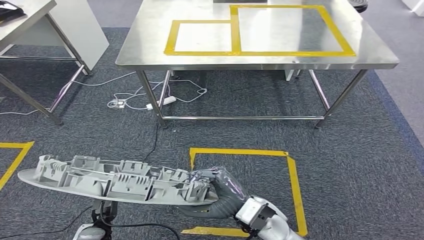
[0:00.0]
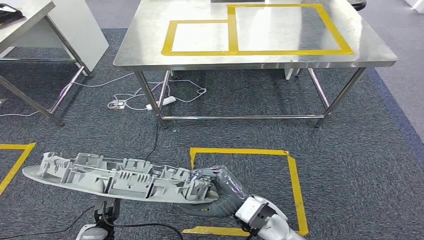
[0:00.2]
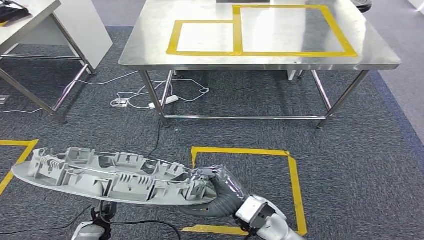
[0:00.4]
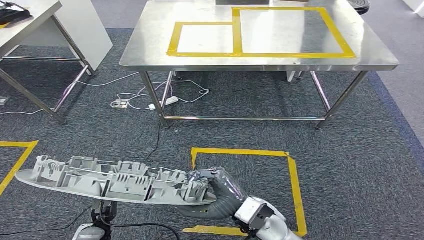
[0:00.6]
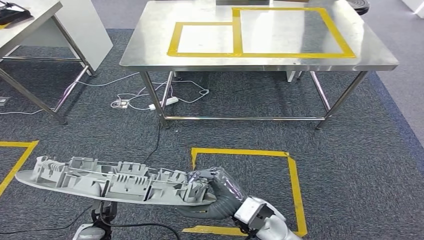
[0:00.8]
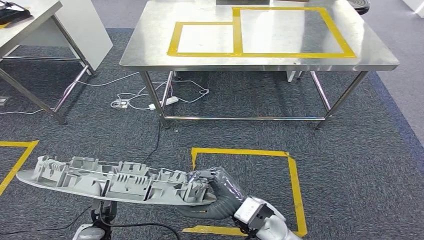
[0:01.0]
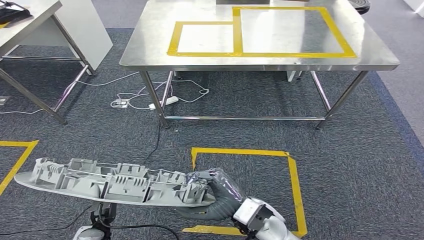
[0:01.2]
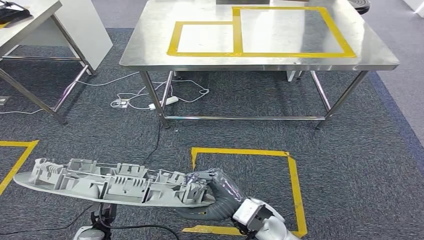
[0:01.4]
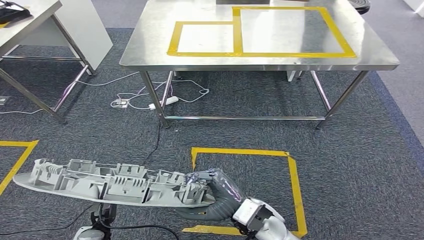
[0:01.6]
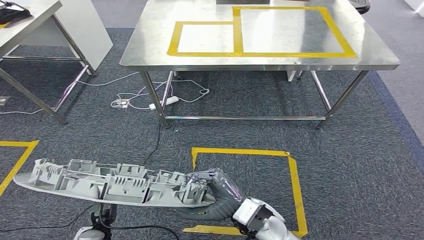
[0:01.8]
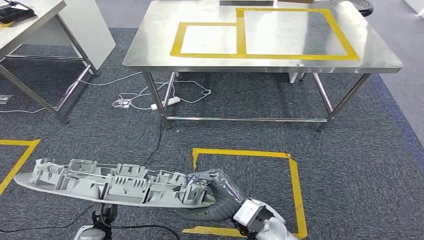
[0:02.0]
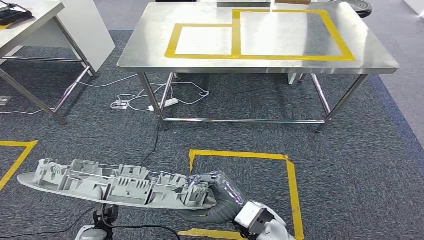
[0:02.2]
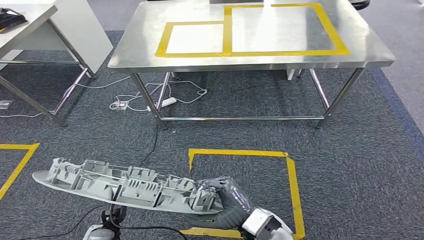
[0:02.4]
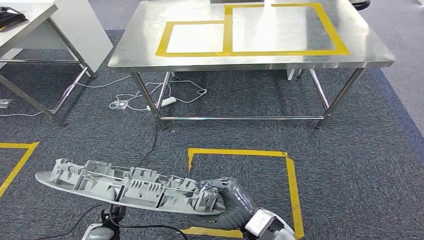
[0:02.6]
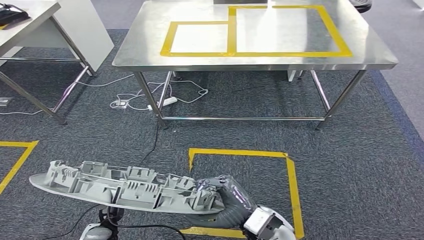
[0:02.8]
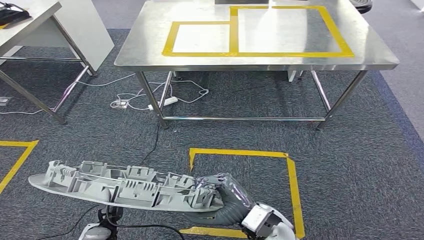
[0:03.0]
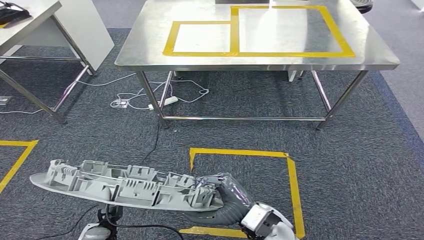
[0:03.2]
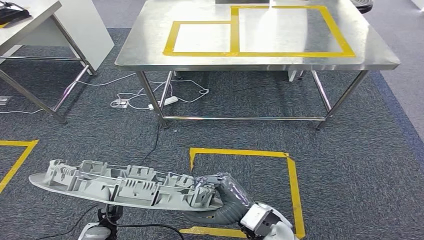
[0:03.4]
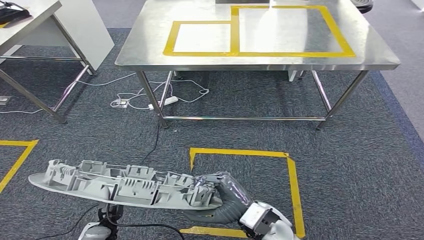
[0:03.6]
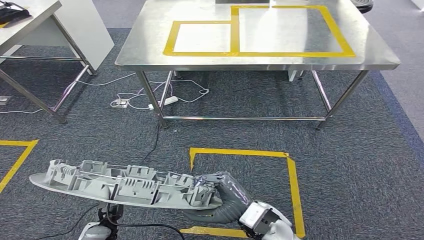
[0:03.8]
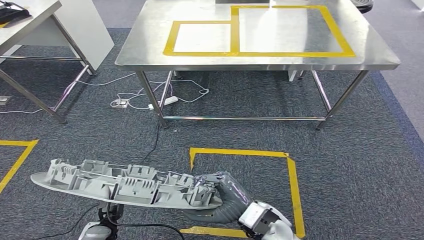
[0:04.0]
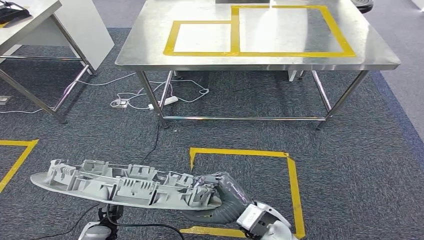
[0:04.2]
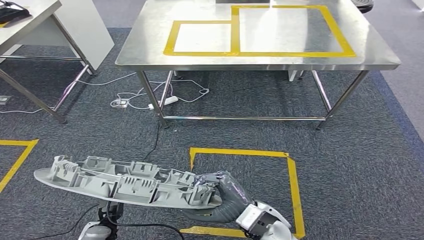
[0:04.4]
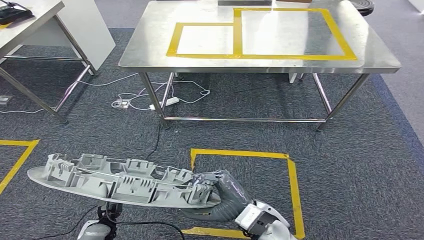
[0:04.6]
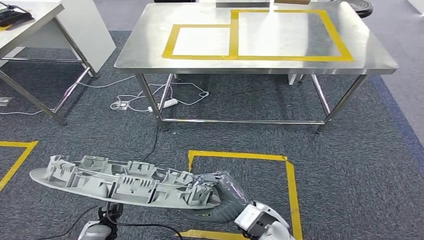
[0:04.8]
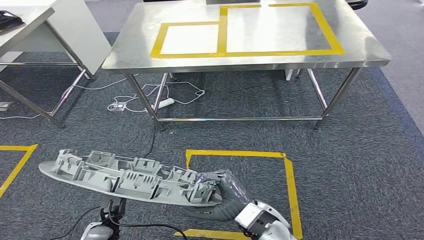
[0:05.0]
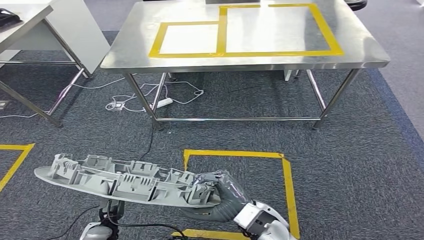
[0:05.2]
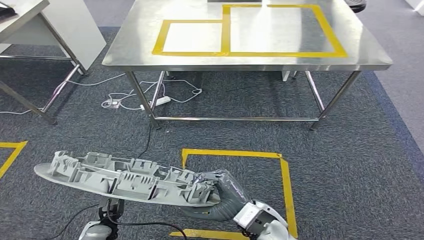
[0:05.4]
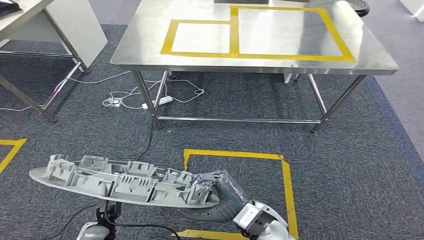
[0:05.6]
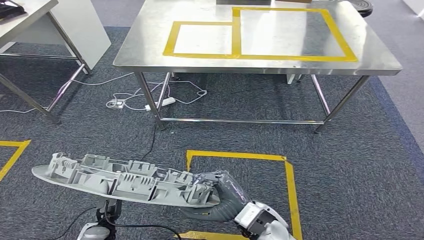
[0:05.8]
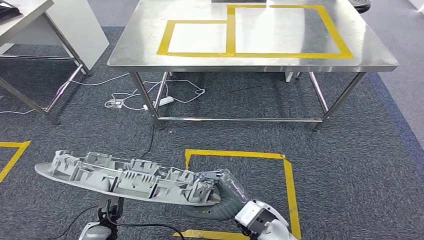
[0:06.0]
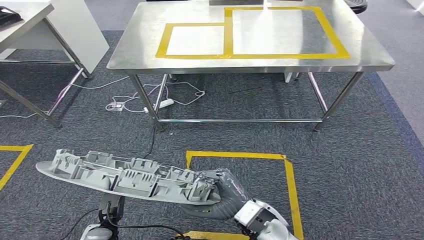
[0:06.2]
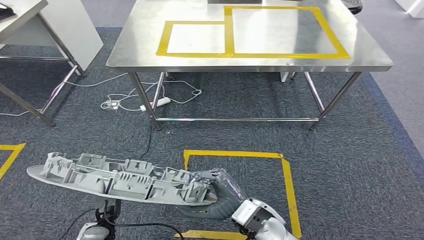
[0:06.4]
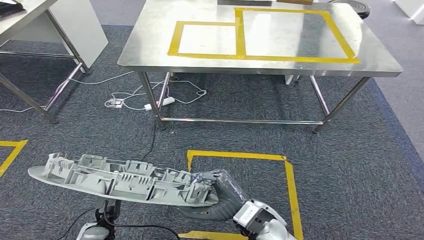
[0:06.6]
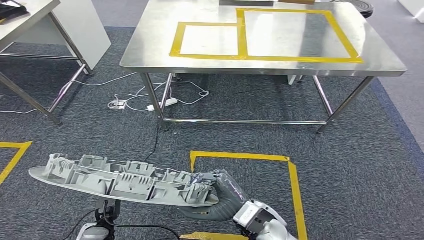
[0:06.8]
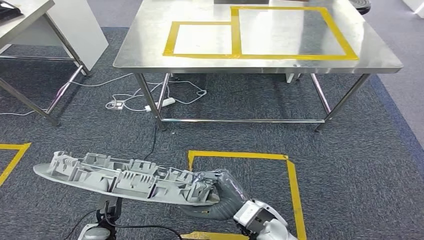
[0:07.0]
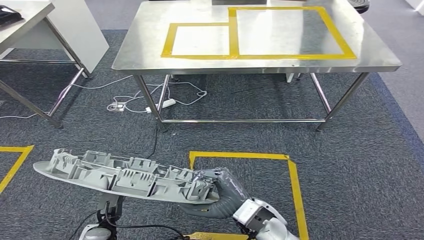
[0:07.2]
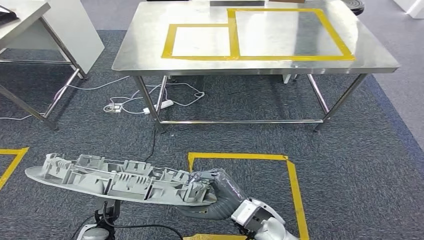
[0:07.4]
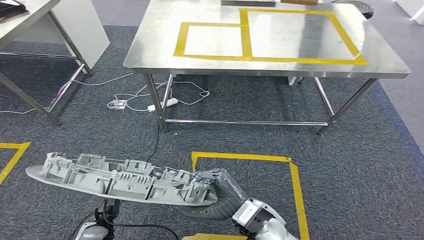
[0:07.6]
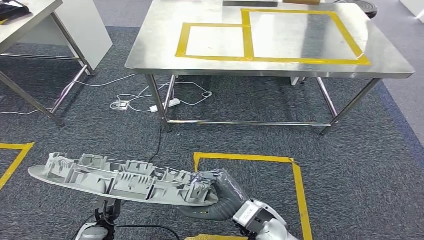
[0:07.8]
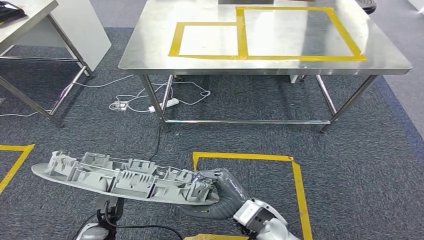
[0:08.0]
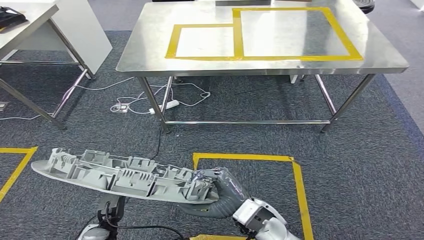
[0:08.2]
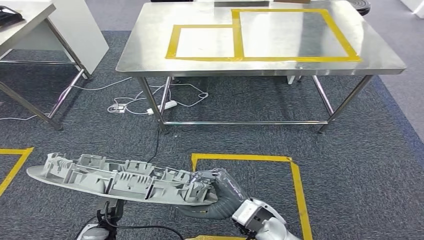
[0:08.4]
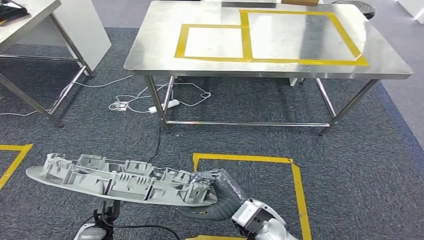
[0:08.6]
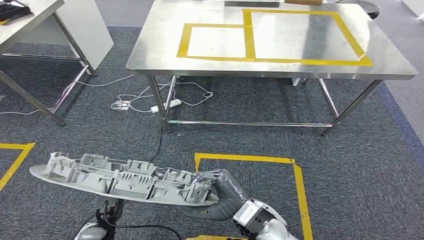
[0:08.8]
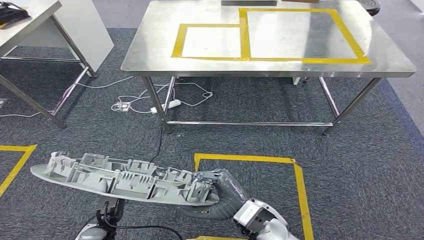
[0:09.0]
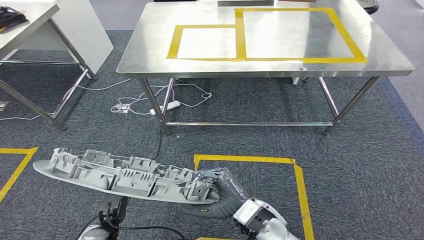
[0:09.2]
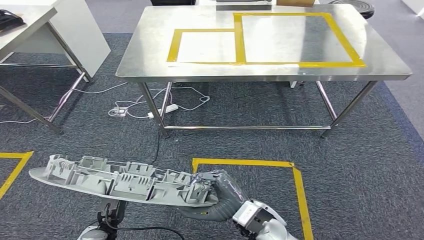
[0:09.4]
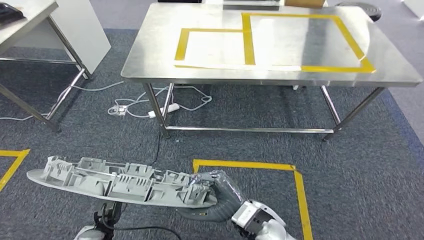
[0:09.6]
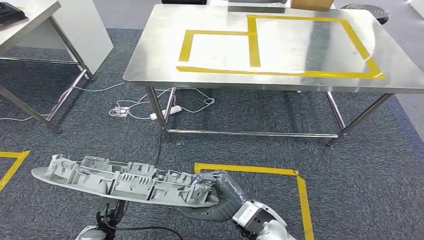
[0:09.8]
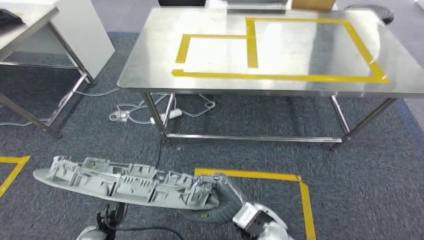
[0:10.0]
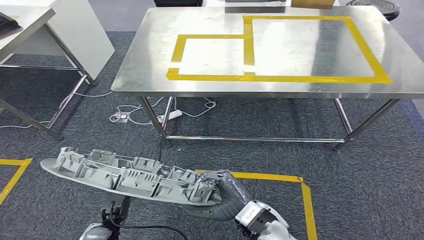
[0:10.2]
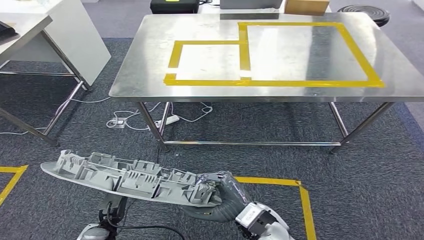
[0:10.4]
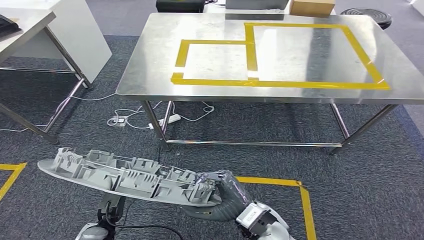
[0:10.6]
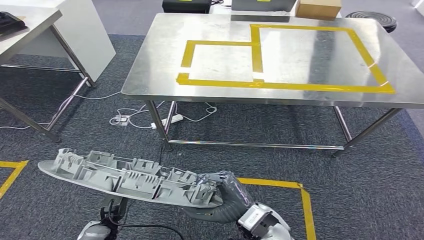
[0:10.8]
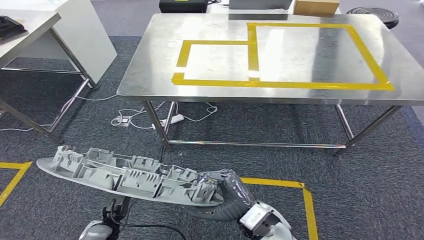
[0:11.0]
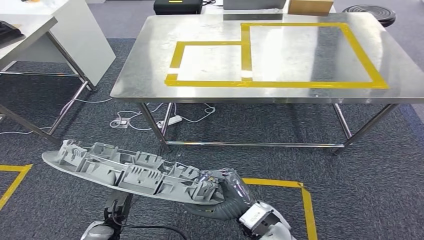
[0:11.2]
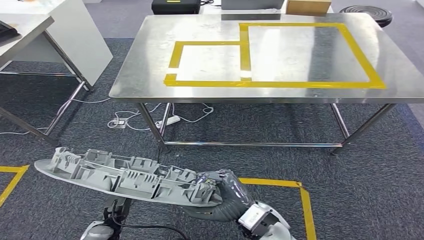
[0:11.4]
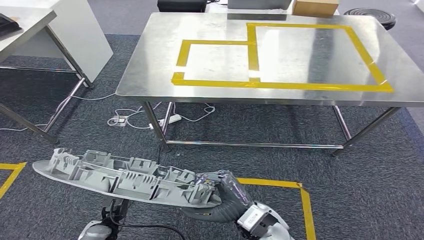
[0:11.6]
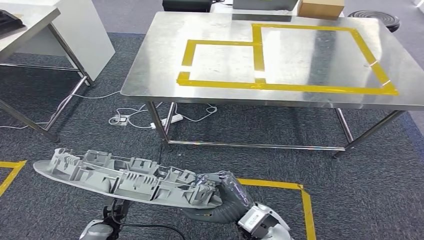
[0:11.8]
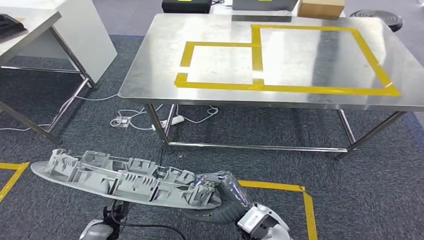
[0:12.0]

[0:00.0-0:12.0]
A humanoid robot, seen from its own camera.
0:00.0 to 0:01.6: Both hands stay put.
0:01.6 to 0:03.0: The hands stay close to where they were, moving slightly.
0:03.0 to 0:06.0: The two hands keep their place.
0:07.6 to 0:09.0: The hands stay close to where they were, moving slightly.

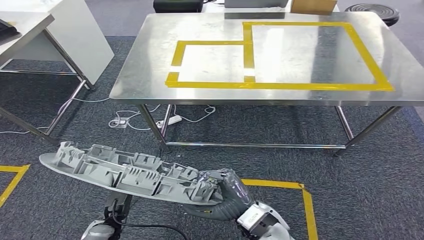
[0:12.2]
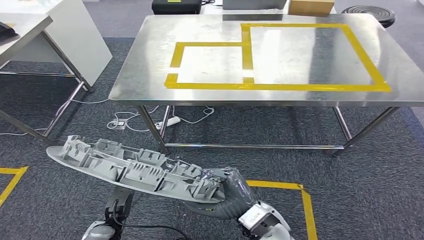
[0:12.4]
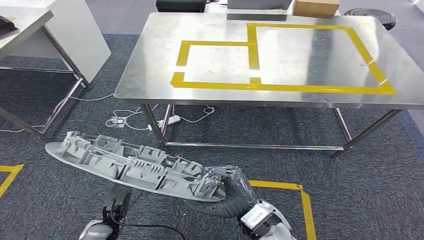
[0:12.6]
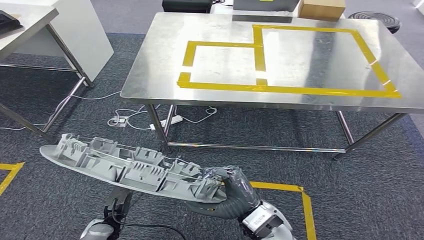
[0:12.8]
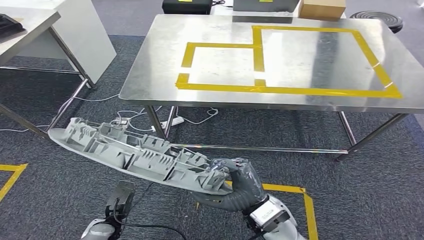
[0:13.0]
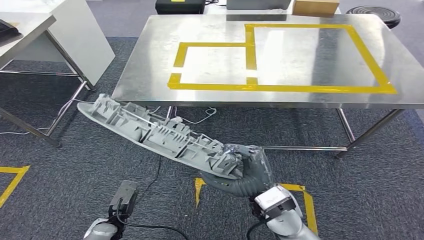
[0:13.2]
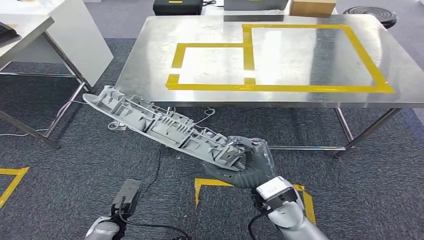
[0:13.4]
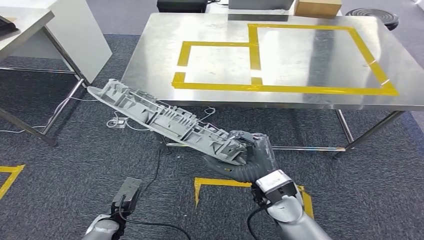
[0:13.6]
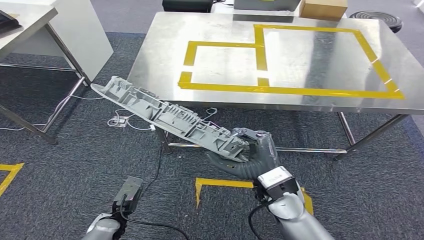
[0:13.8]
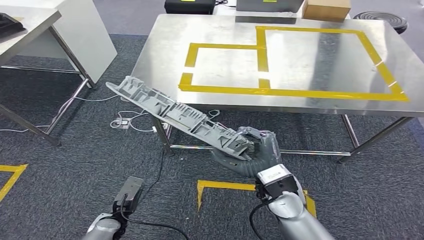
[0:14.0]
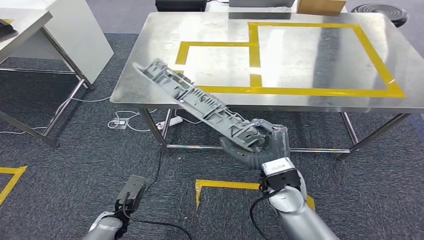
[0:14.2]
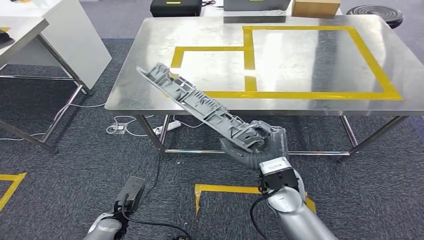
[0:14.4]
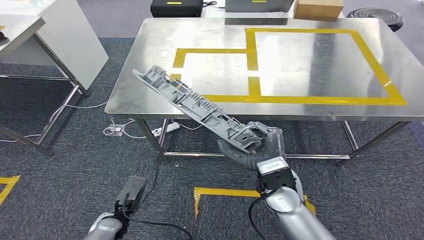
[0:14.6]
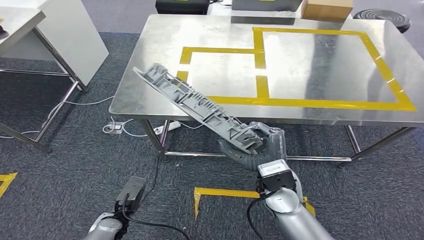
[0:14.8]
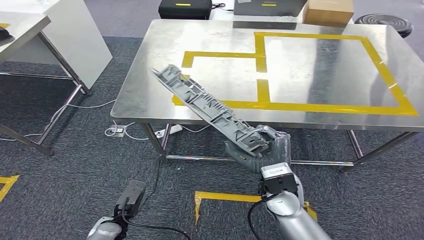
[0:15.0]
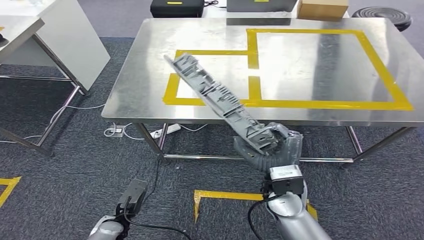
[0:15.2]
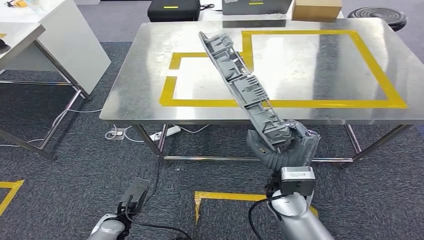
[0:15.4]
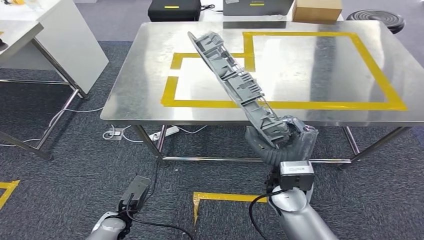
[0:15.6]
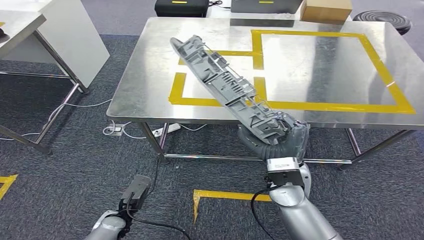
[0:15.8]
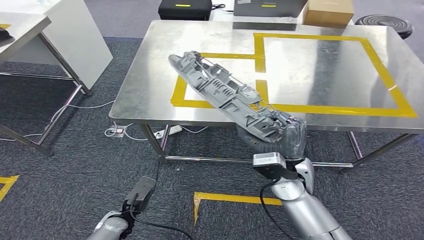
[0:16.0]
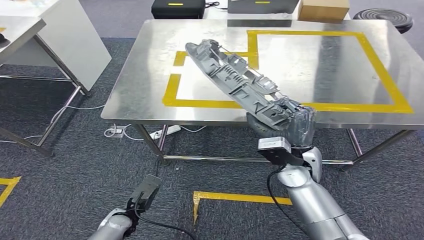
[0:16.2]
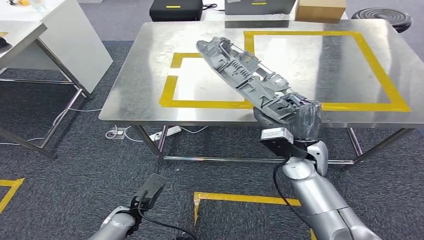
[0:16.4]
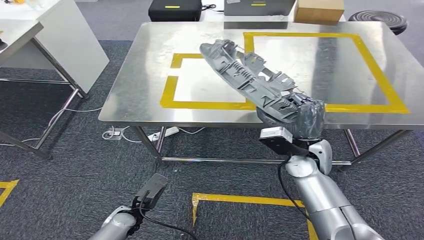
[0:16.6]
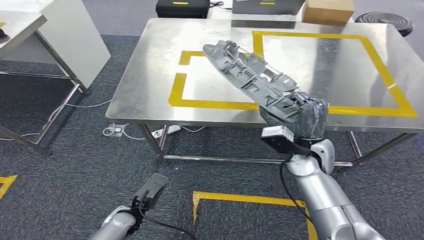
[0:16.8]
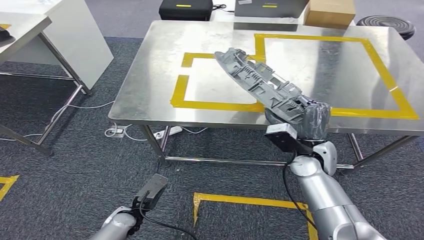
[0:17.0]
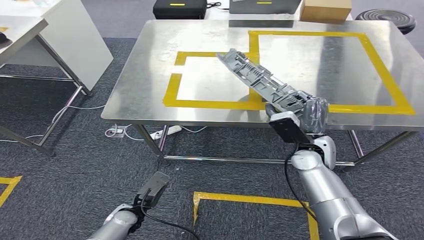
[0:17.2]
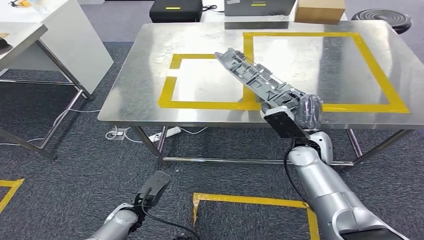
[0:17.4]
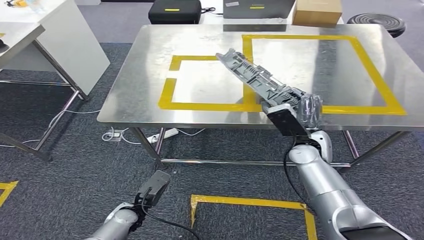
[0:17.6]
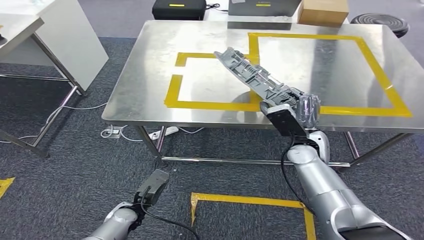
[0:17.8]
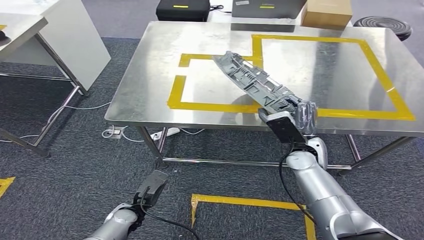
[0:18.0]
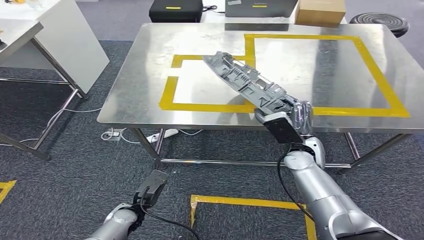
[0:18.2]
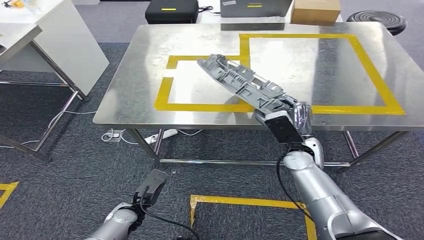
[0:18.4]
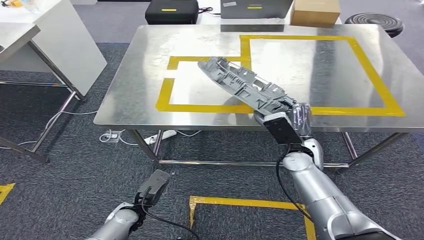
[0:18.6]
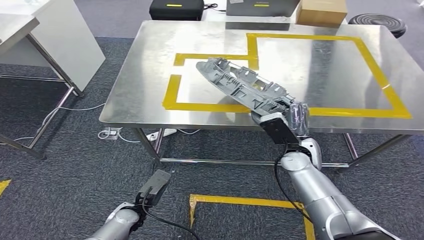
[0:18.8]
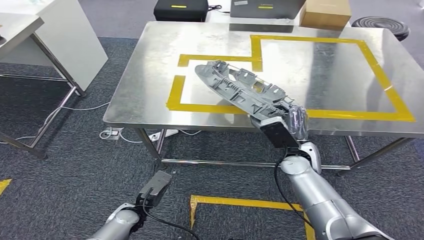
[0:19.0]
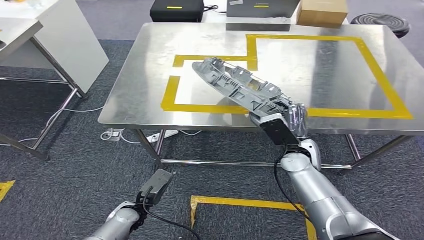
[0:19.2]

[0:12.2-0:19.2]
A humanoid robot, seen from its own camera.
Step, 0:12.2 to 0:15.2: Move to the table behind body.
